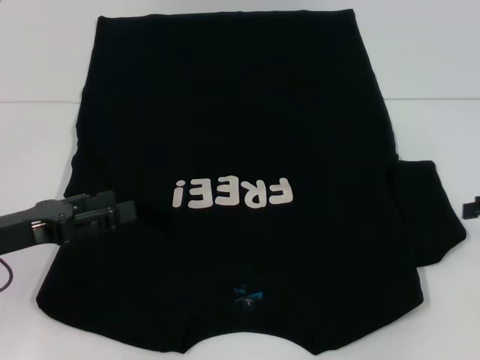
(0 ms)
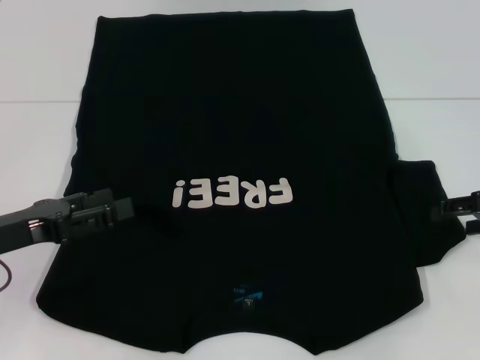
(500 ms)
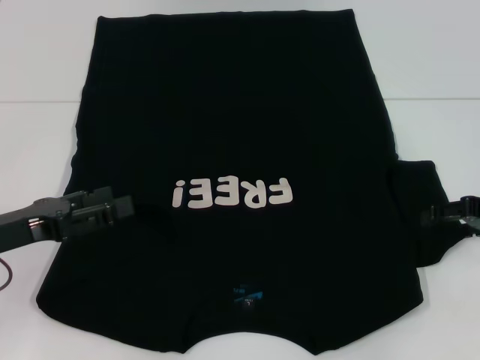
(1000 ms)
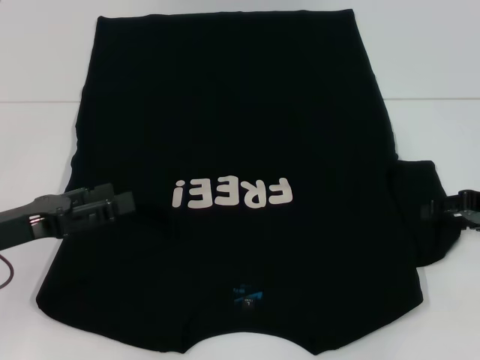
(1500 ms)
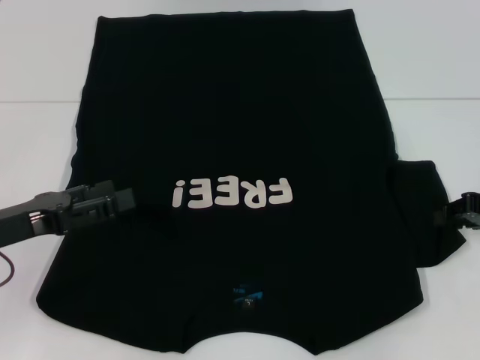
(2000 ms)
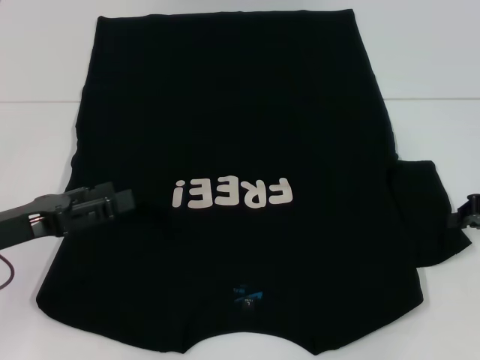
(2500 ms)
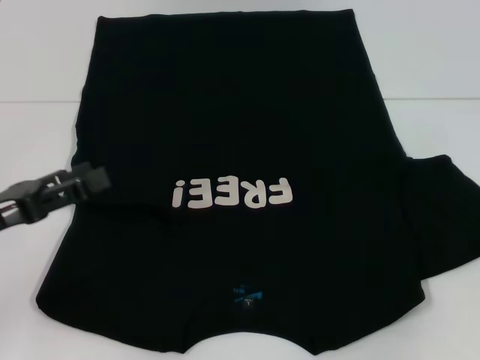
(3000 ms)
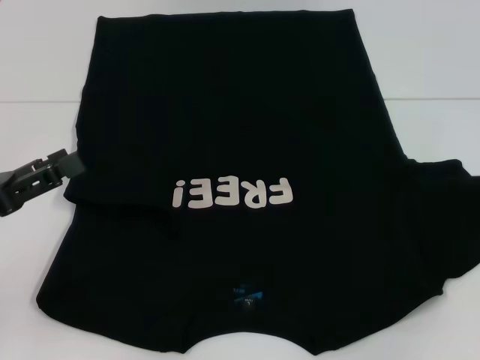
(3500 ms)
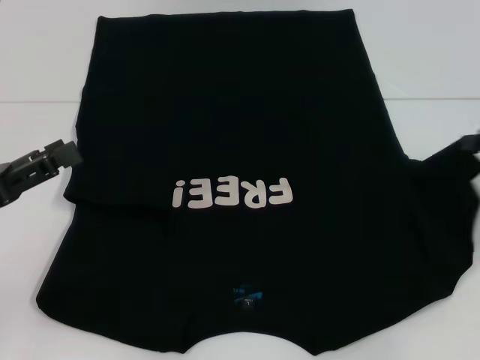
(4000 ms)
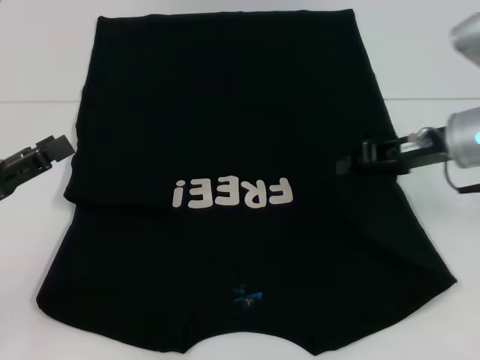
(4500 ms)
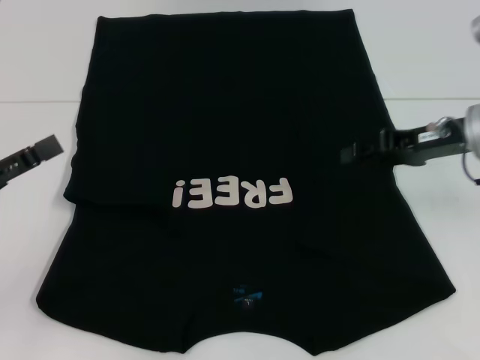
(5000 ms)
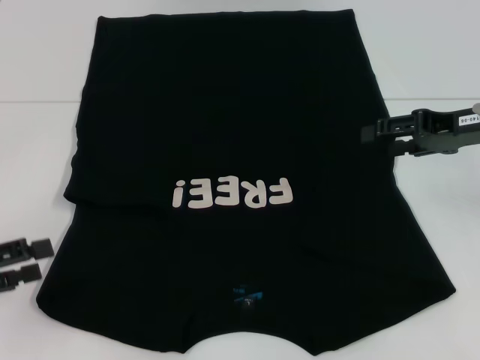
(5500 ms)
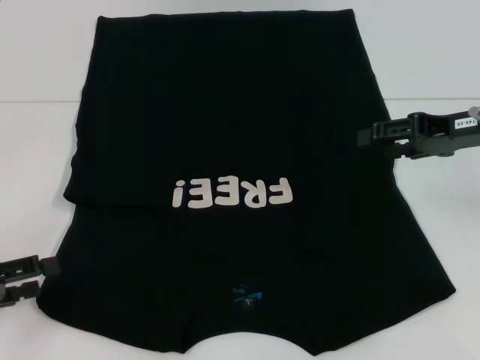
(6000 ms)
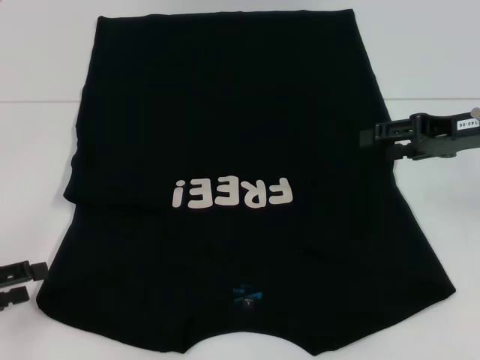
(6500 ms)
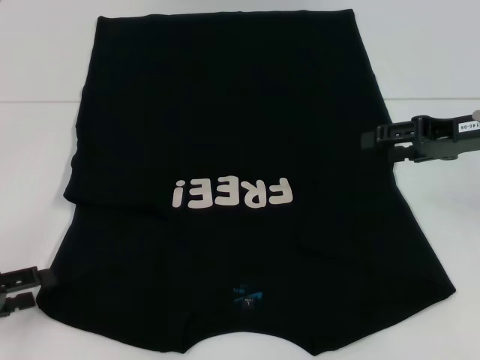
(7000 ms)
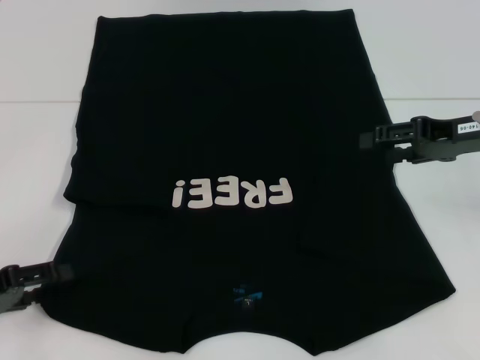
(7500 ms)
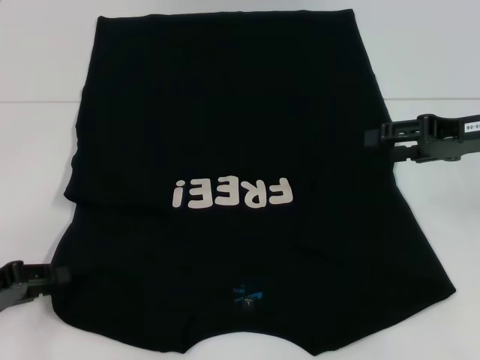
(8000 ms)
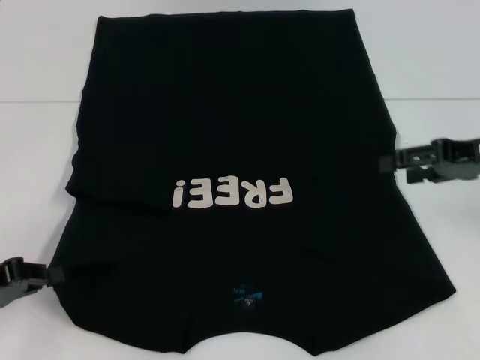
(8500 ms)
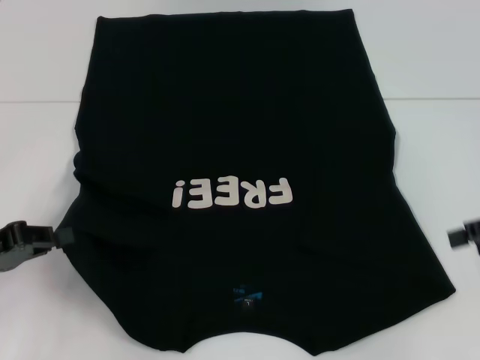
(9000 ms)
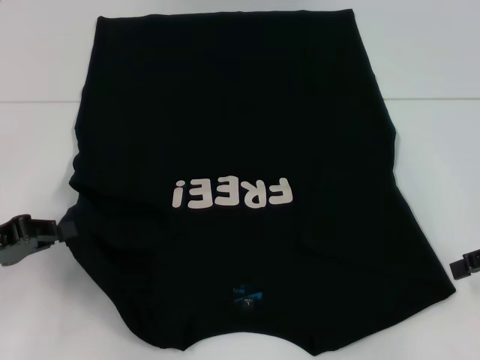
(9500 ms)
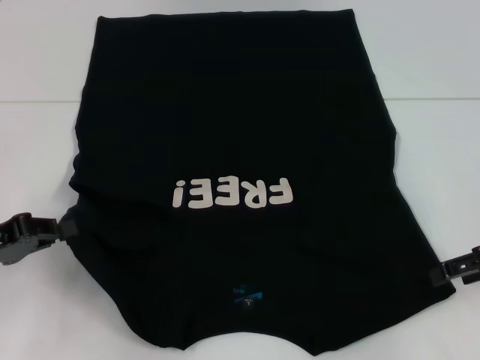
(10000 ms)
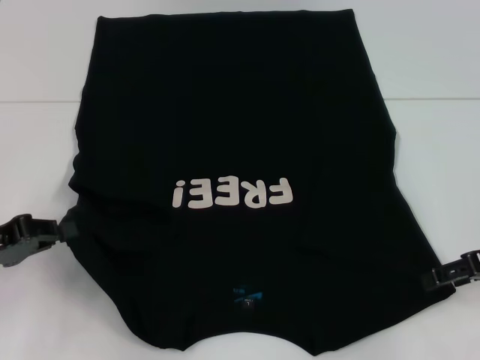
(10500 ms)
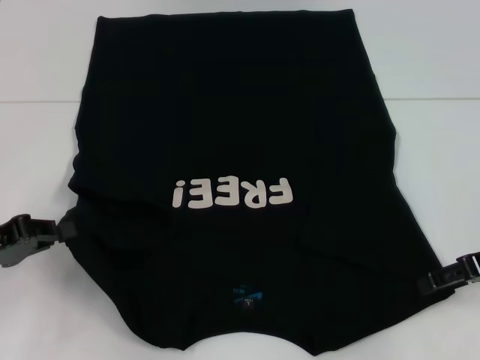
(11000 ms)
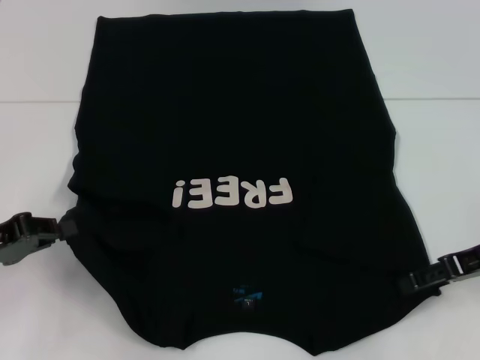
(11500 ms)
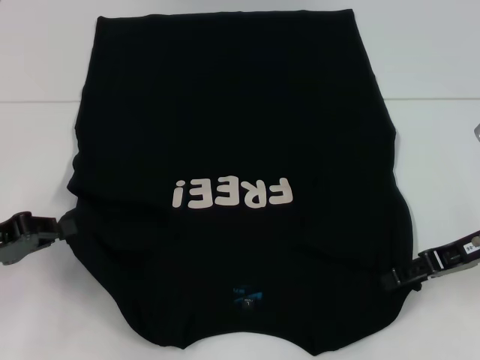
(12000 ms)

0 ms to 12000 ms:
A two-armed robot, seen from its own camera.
Step, 0 ms to 5000 ms: Fold the bottom right sleeve with your right hand.
Step, 5500 ms to 8500 ms: Grab the bottom left corner with your left hand.
0 ms to 2000 ms: The right gripper ends up approximately 5 cm from where it was, and closes up.
2000 ms to 4000 ms: The right gripper travels upward by about 5 cm, and closes its fingers.
4000 ms to 6000 ms: The left gripper shifts by about 5 cm; the right gripper moves to the left, about 5 cm, and opens its fingers.
6000 ms to 8000 ms: The grippers move only a little.
8000 ms to 10000 ms: The right gripper shifts roughly 5 cm backward. Meanwhile the left gripper closes up.
10000 ms to 12000 ms: The right gripper goes some 5 cm to the left.

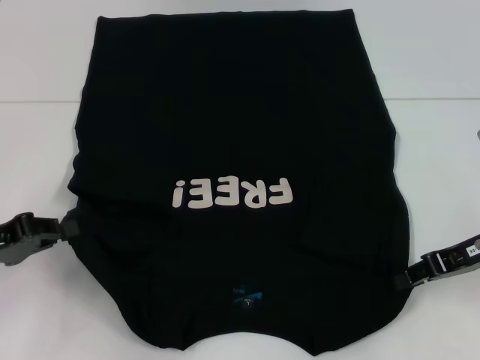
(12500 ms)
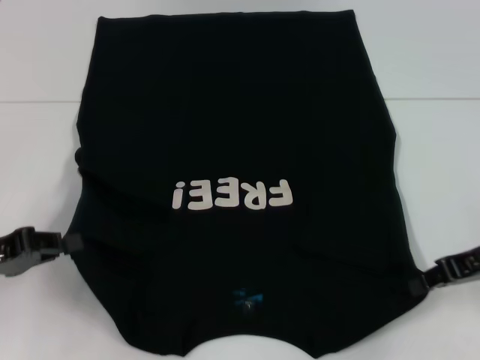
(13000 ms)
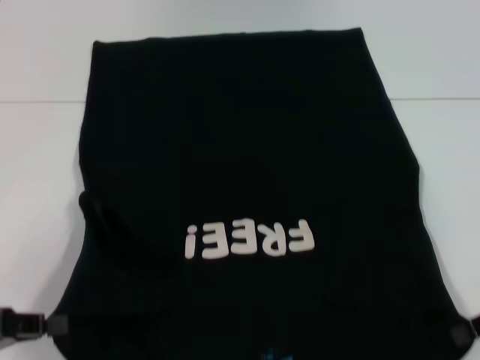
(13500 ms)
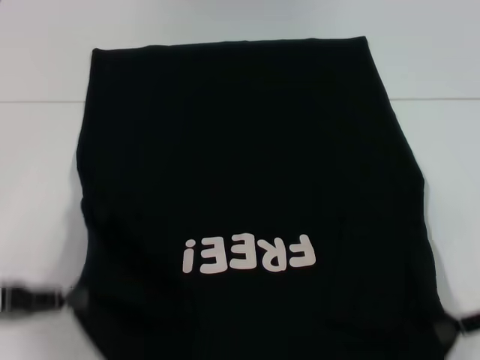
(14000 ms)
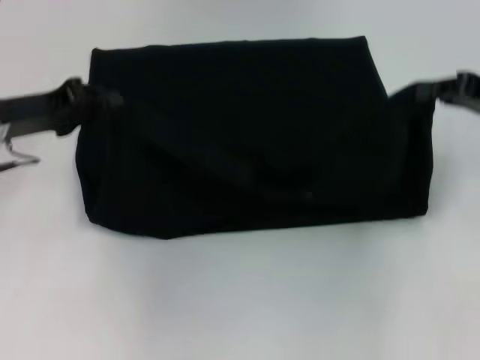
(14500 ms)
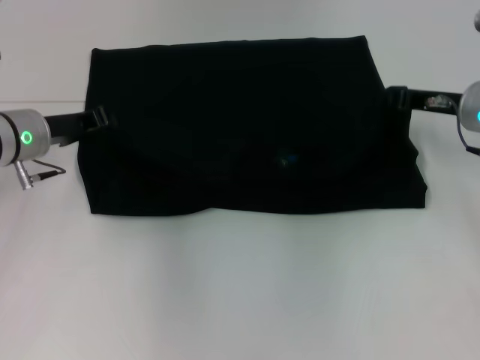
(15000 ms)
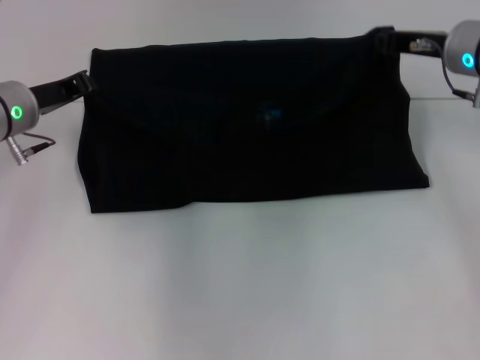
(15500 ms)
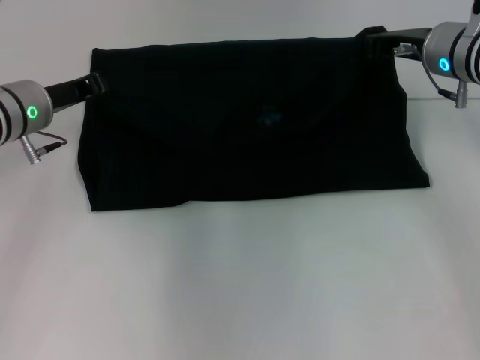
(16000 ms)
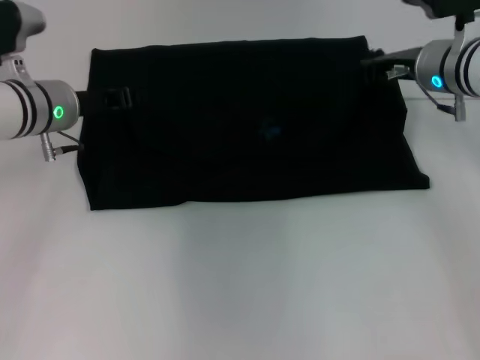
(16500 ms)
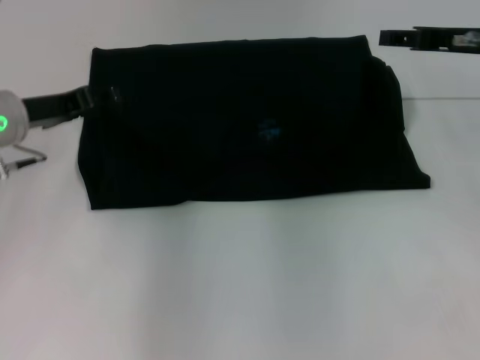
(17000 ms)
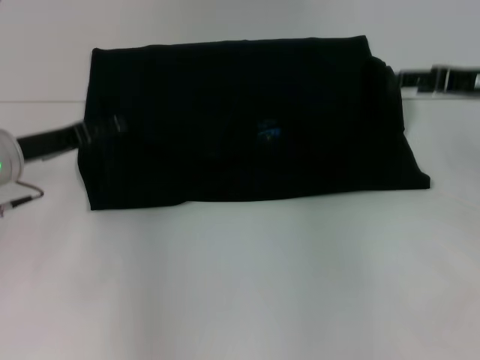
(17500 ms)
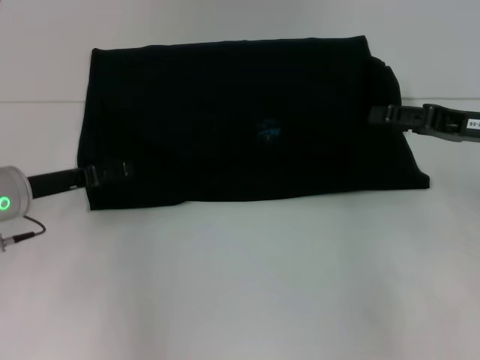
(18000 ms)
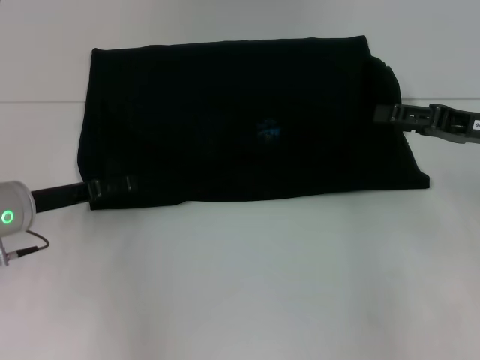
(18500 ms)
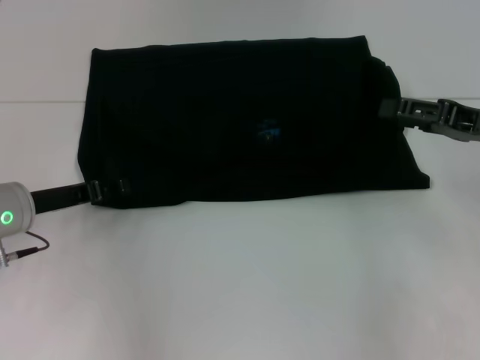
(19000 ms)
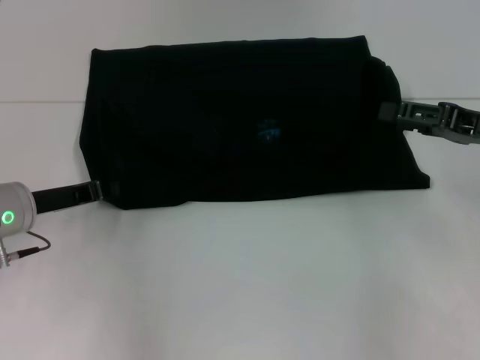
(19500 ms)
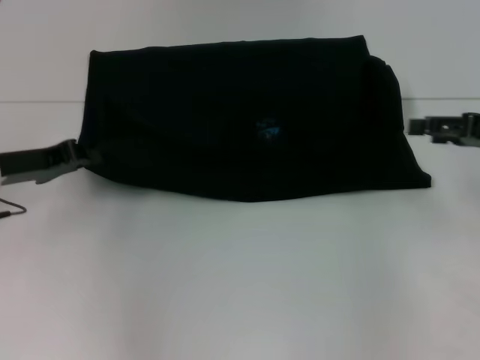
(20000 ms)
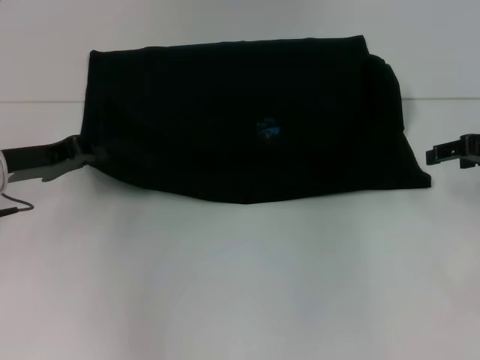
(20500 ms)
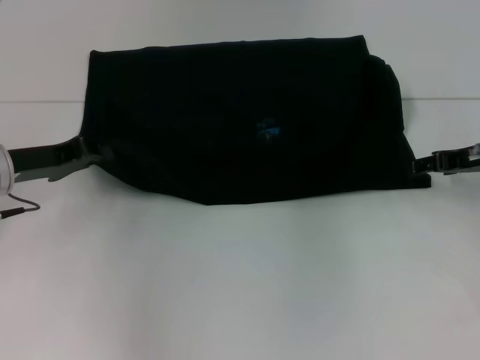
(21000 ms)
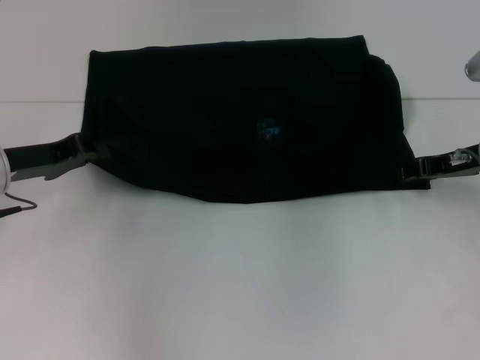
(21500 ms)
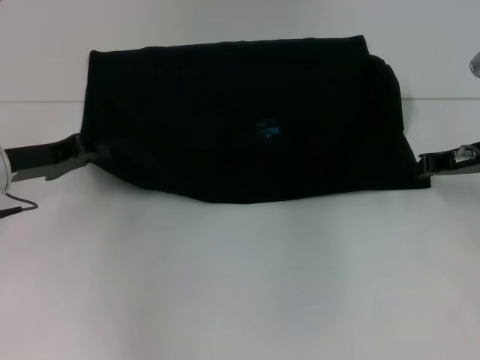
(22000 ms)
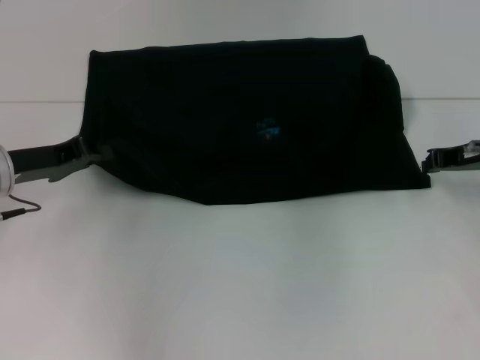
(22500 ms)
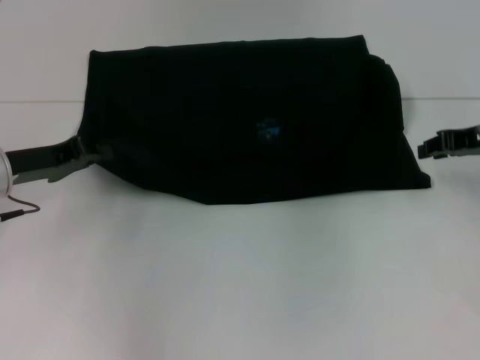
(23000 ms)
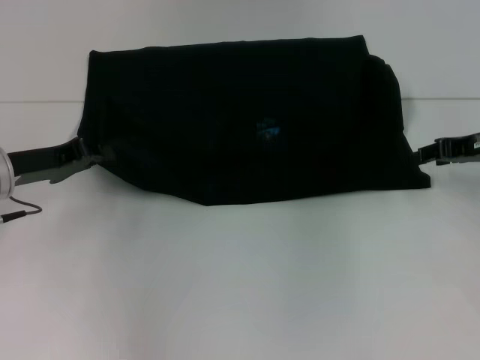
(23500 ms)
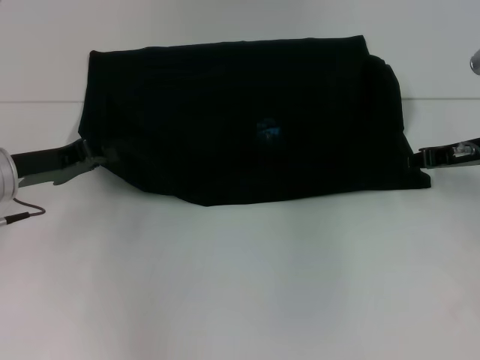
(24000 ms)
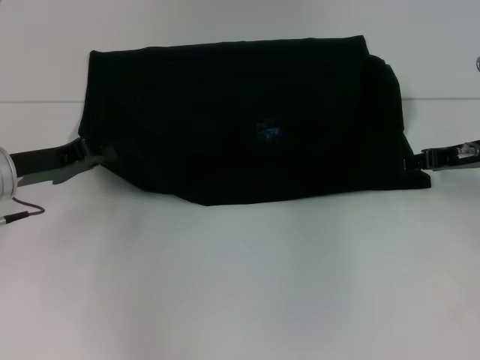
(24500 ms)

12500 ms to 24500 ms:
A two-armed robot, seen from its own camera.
Step, 13000 ms to 16500 ms: Fold the clothes with your left hand.
Step, 13000 ms to 16500 ms: Fold the clothes with your right hand.
12500 ms to 14500 ms: The left gripper travels forward and upward by roughly 10 cm. The right gripper moves upward and forward, some 10 cm, and closes.
14500 ms to 16500 ms: The right gripper heads to the left and forward, covering approximately 15 cm. Meanwhile the left gripper moves to the right and forward, about 10 cm.
16500 ms to 18500 ms: The left gripper is displaced backward and downward by roughly 10 cm, and opens up, while the right gripper moves backward and to the right, approximately 15 cm, and opens up.
18500 ms to 20500 ms: The left gripper closes its fingers.
20500 ms to 22500 ms: The right gripper closes.

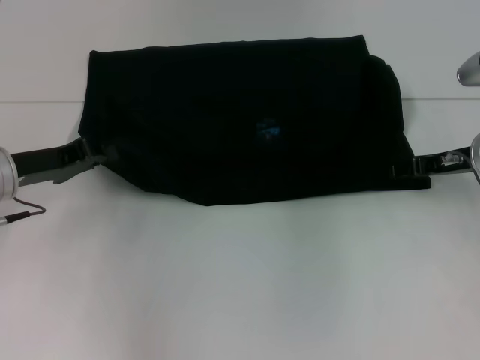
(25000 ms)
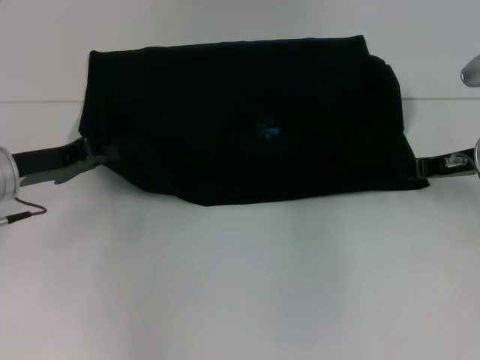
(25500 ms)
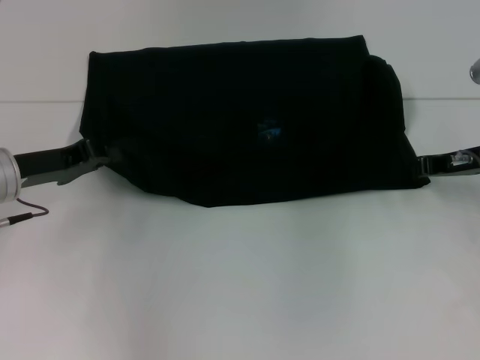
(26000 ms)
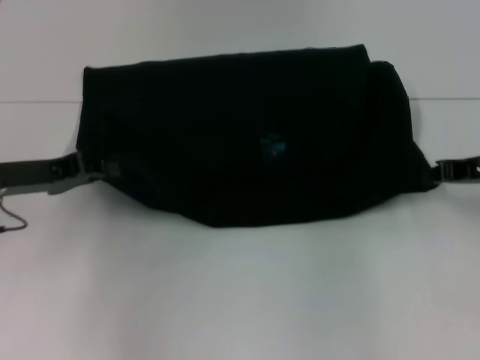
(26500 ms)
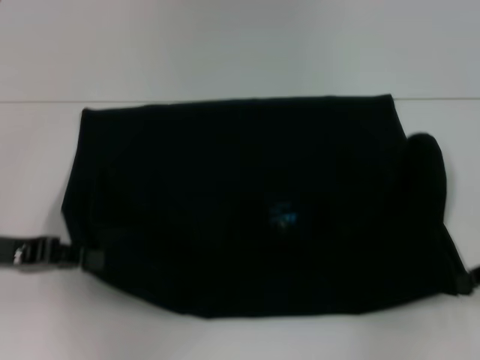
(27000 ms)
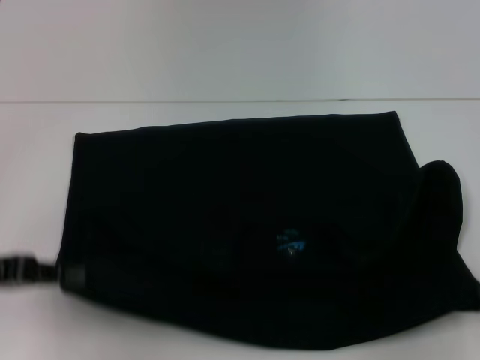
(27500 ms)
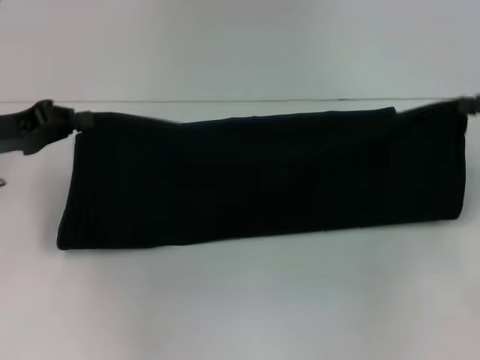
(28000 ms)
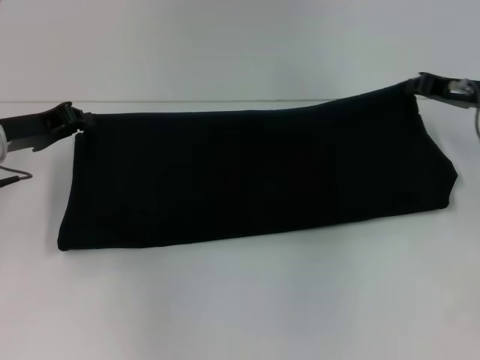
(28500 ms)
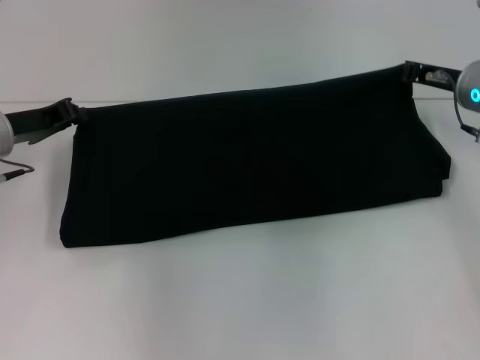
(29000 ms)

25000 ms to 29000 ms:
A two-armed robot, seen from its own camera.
Step, 25000 ms to 27000 ms: Pull the clothes with your left hand.
Step, 25000 ms to 27000 ms: Pull the clothes with your right hand.
25000 ms to 27000 ms: The right gripper is displaced backward and to the right by about 15 cm, and closes its fingers, while the left gripper is displaced backward by some 5 cm.
27000 ms to 29000 ms: The right gripper moves forward and to the left, roughly 15 cm. Meanwhile the left gripper moves forward, roughly 10 cm.
